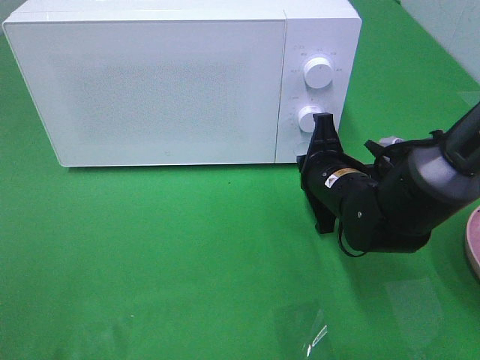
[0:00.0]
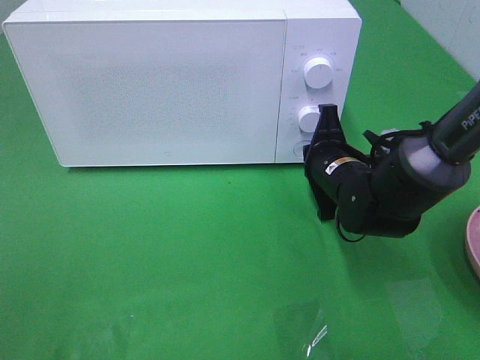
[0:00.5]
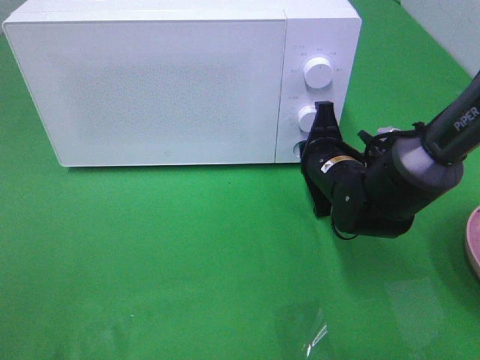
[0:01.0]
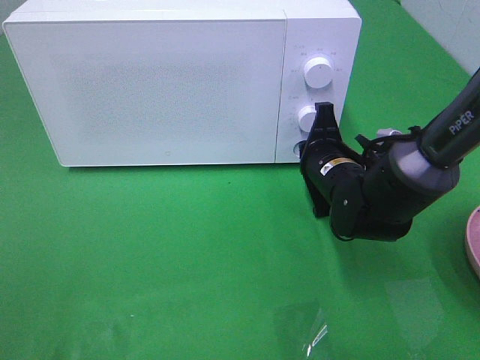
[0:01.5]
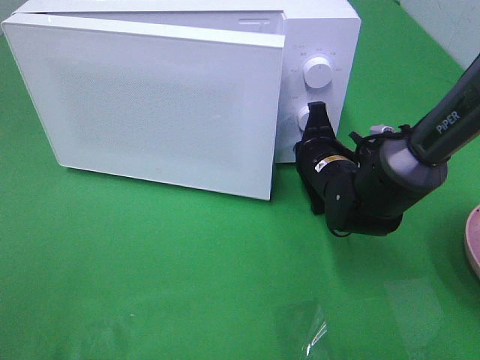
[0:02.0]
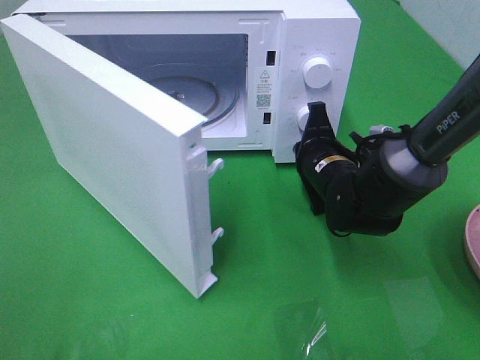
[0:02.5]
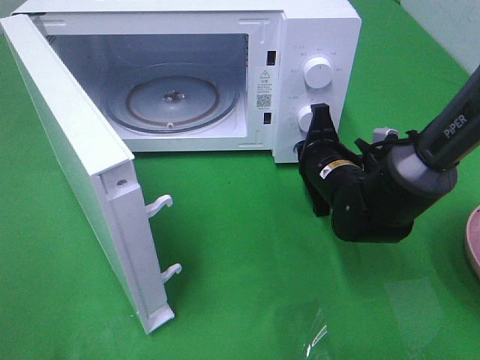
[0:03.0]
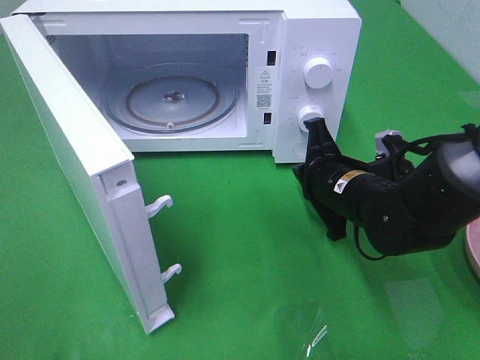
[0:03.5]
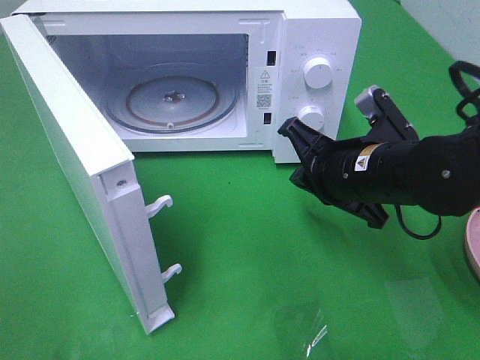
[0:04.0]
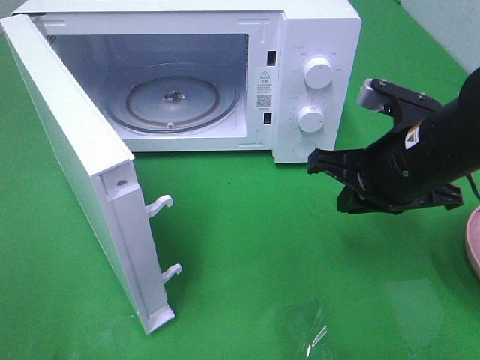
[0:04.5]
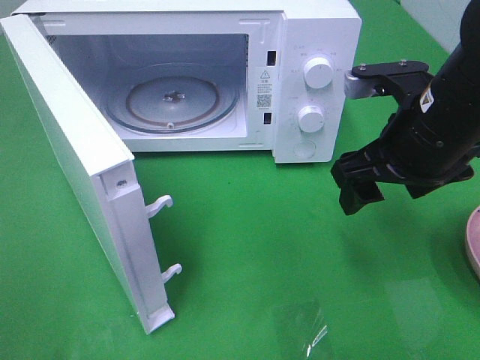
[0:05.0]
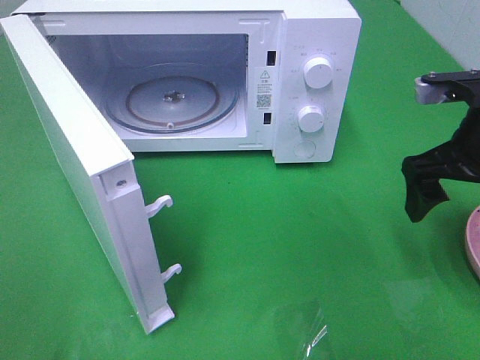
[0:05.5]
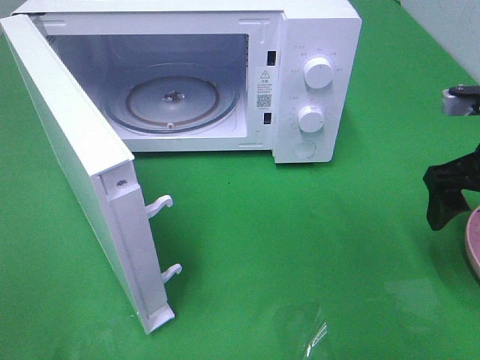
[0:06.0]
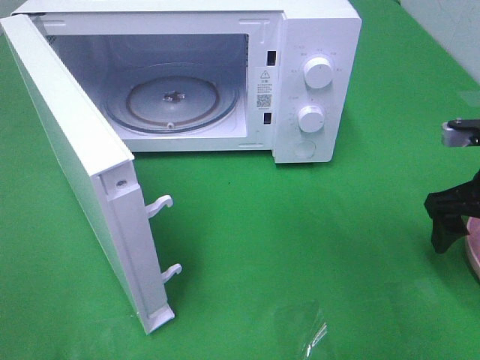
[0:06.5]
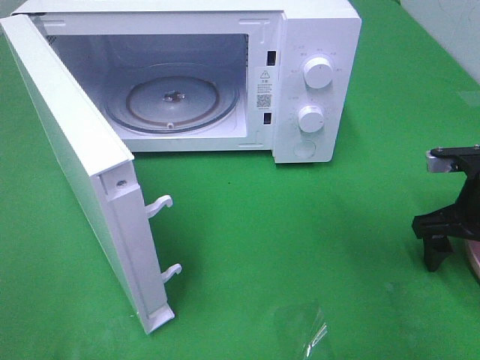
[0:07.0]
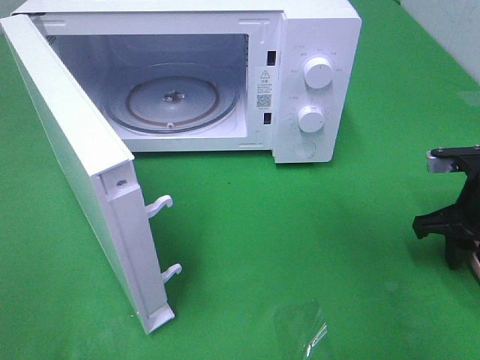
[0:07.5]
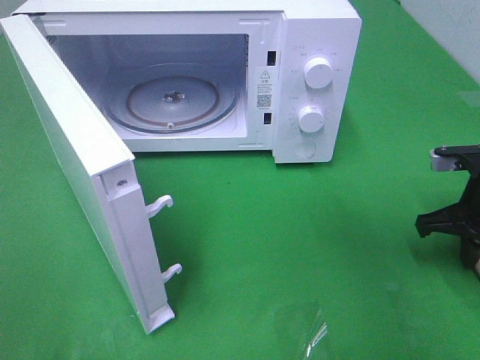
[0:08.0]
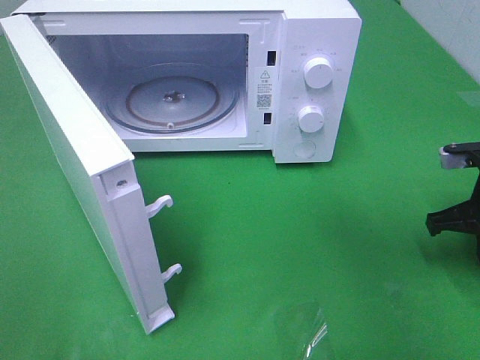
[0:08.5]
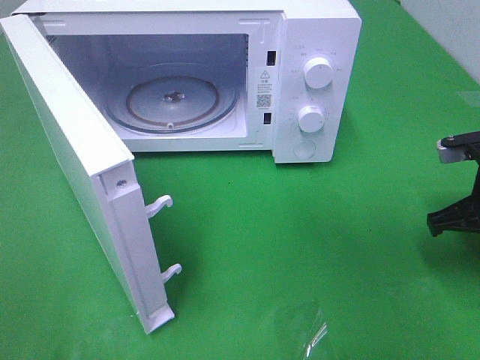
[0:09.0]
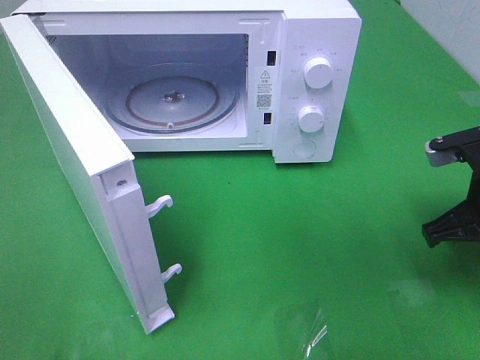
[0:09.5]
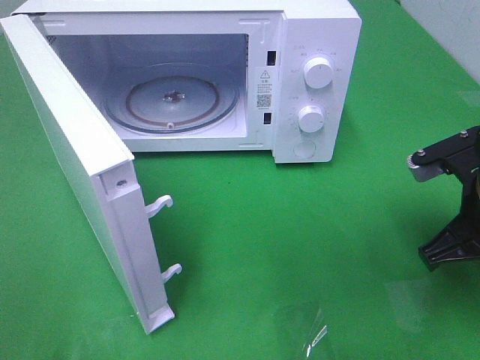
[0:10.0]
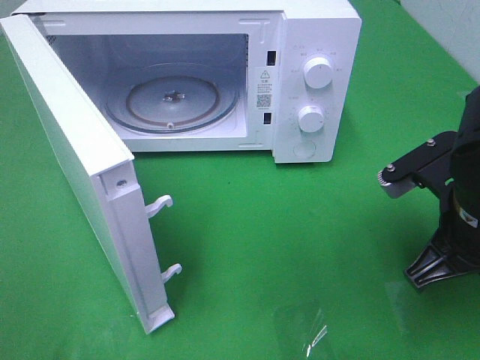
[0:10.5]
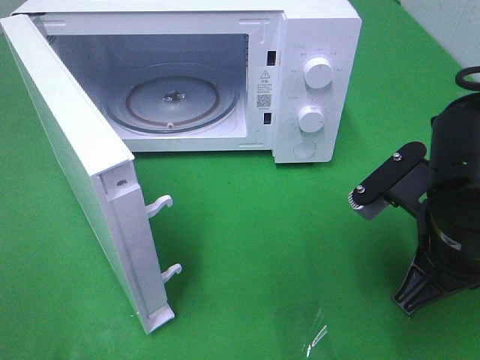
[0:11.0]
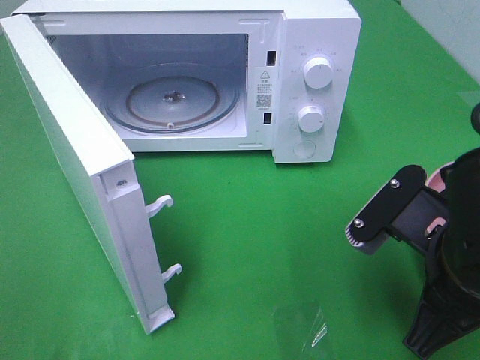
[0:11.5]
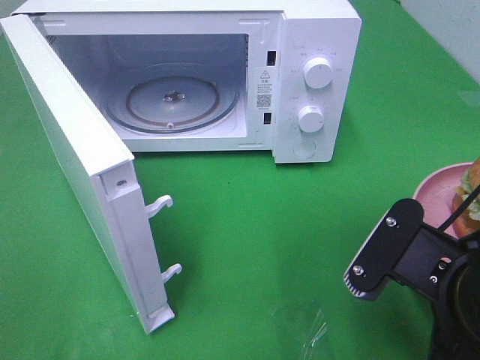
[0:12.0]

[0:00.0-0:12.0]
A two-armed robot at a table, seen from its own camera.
Task of the whole recording: Heat the burger.
Step, 0:00.0 to 0:03.0: Right hand: press the switch.
Step, 0:03.5 to 0:08.5: Right hand: grab the plate with the hamburger.
0:00.0 to 0:02.0: There are only small adjustments of the grippers.
0:02.0 to 0:04.0: The right gripper travels backward and upward by some 10 cm.
0:04.0 to 0:06.0: The right gripper moves to the right, about 15 cm, and opens its fingers.
0:06.0 to 0:08.0: The right gripper travels downward by approximately 10 cm, and closes.
0:08.0 to 0:10.0: The right gripper heads to the left, backward and upward, covering roughly 10 cm.
0:10.0 to 0:12.0: The right gripper travels backward and to the left by roughly 15 cm.

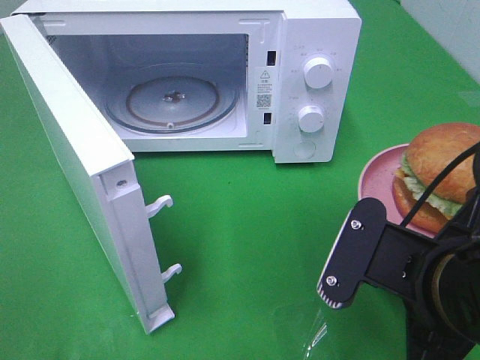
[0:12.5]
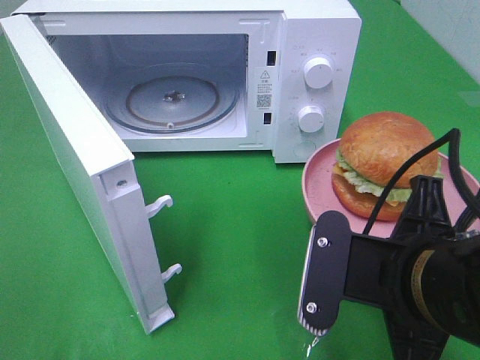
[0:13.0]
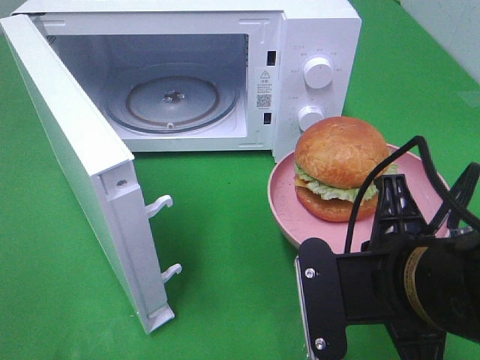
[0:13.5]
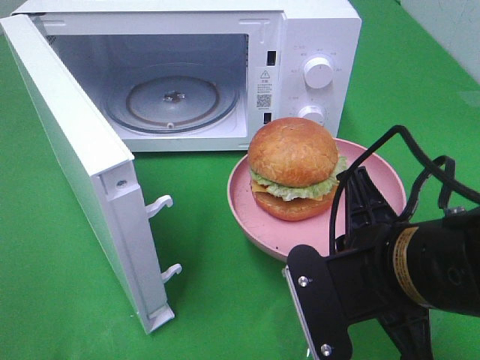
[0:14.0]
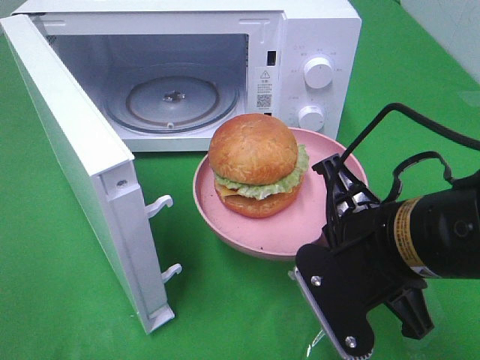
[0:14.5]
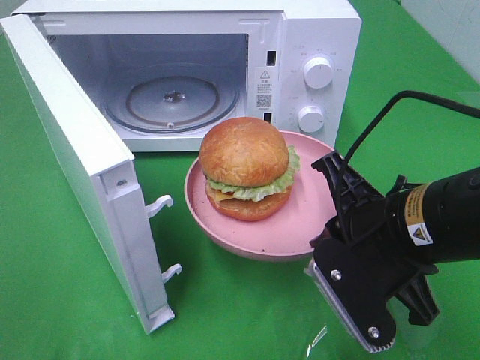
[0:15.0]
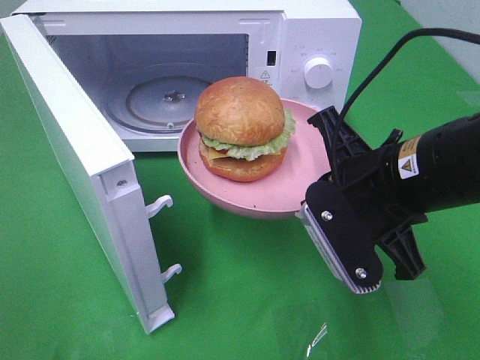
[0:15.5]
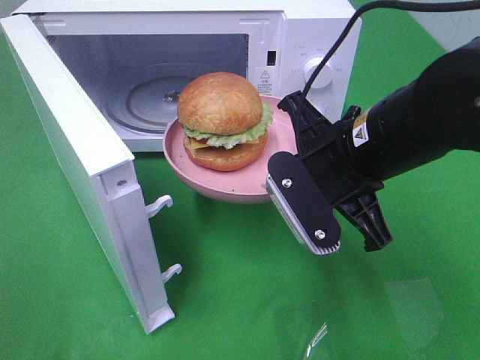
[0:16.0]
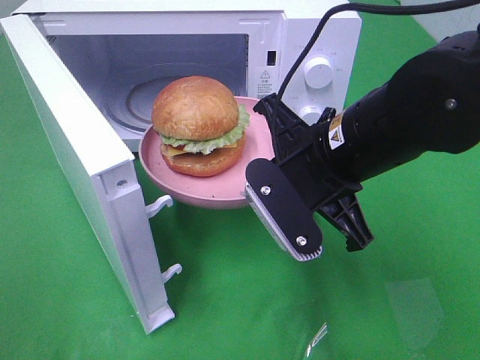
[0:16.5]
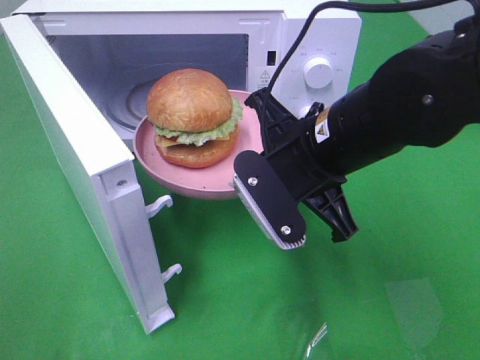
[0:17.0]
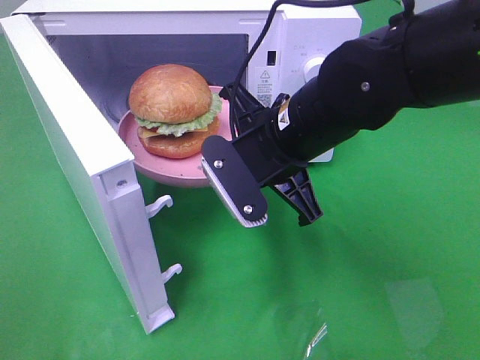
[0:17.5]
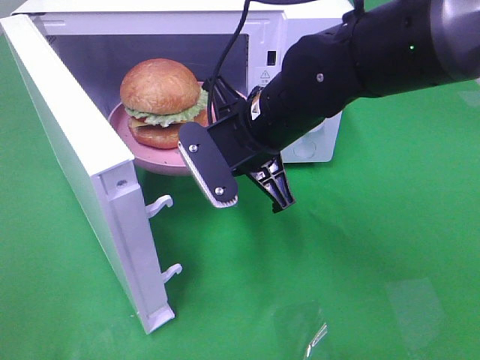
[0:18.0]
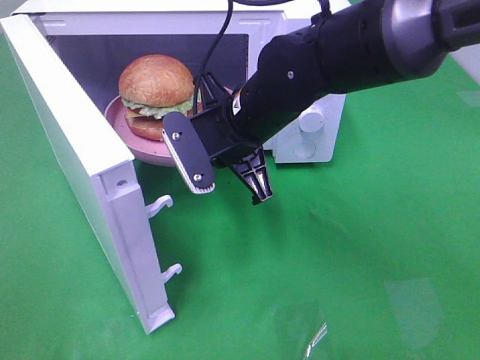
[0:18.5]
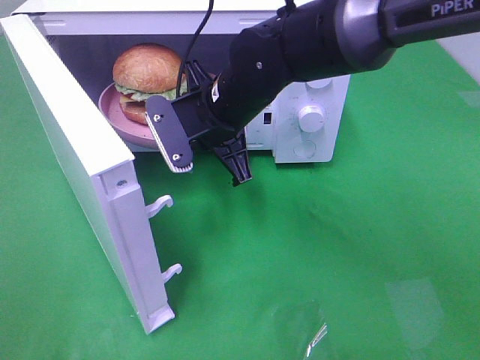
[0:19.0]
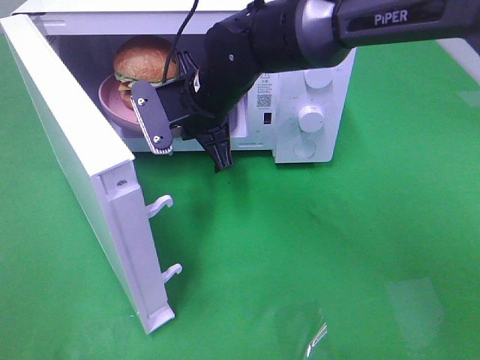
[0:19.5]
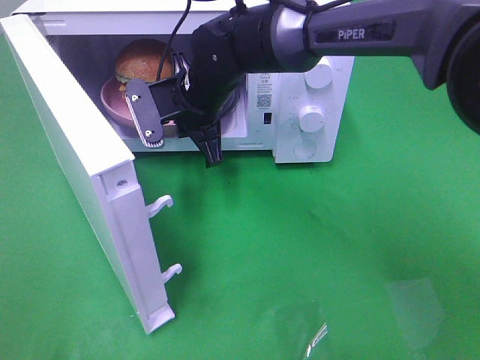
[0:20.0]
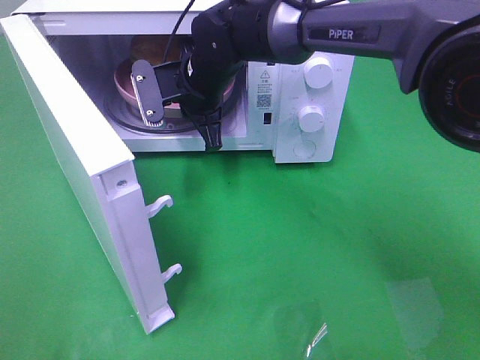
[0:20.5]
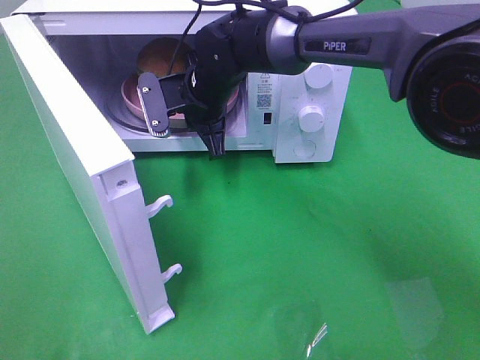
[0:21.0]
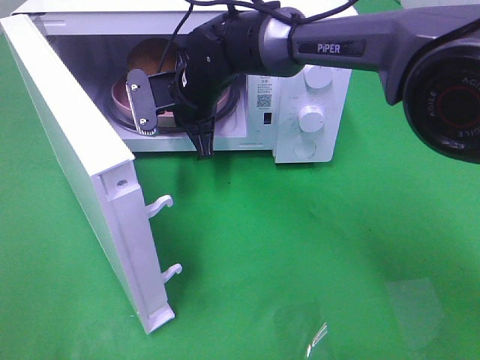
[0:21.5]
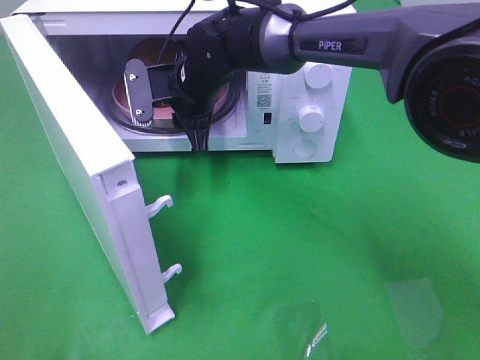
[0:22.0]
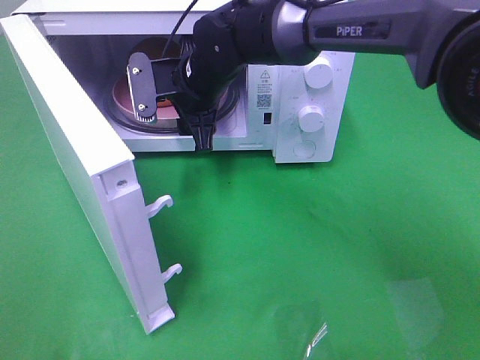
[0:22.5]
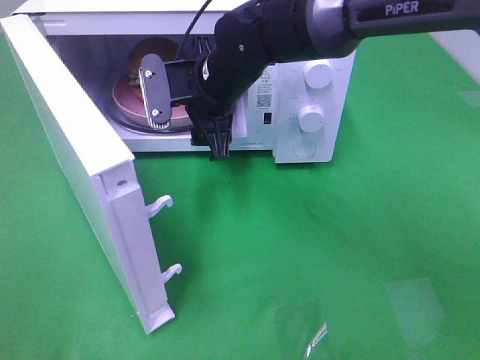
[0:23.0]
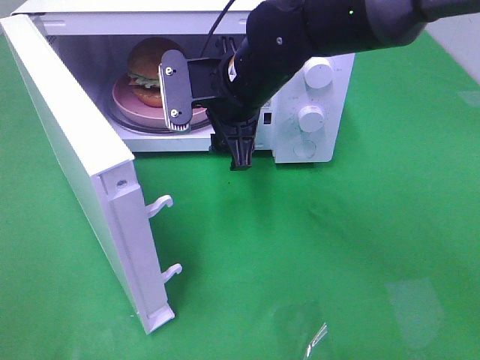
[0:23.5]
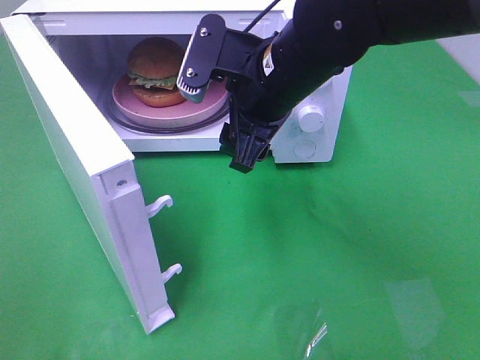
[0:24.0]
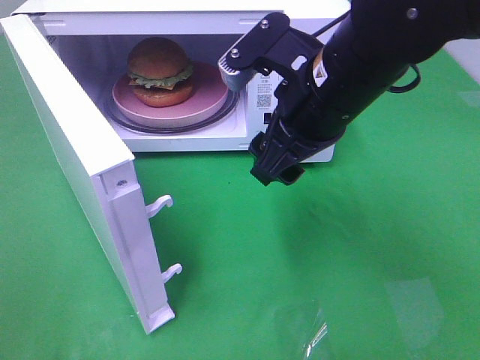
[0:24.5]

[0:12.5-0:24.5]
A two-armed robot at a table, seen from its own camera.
Task of the whole recording: Heat the burger.
Step, 0:12.5 to 0:22.0: Right hand: place the plate in the microwave.
0:14.5 to 0:16.5: The right gripper is displaced forward by some 5 cm.
0:16.5 to 0:18.5: The right gripper is displaced forward and to the left by approximately 10 cm.
0:18.5 to 0:20.5: The right gripper is displaced forward by roughly 10 cm.
0:20.5 to 0:22.5: The right gripper opens its fingers.
0:22.5 to 0:24.5: The right gripper heads backward, to the right and upward, covering roughly 20 cm.

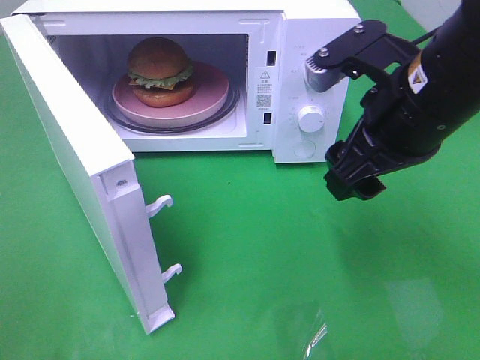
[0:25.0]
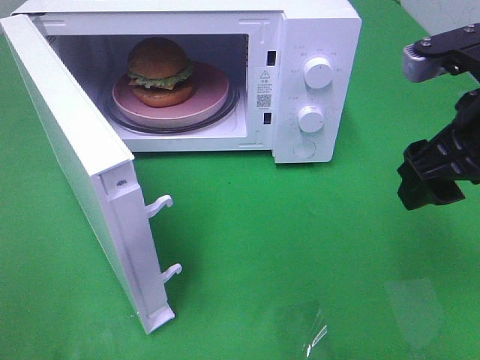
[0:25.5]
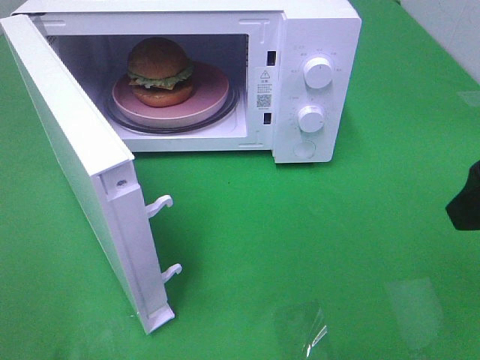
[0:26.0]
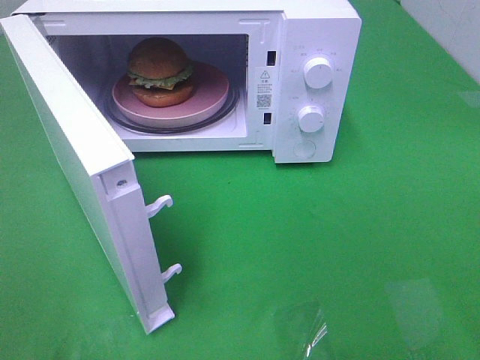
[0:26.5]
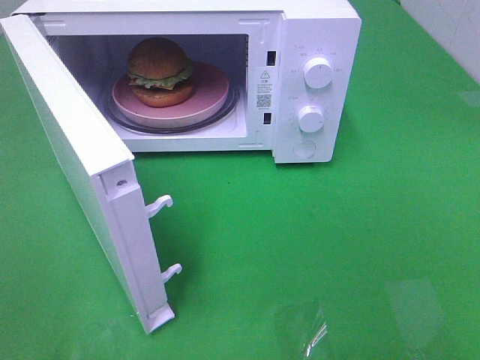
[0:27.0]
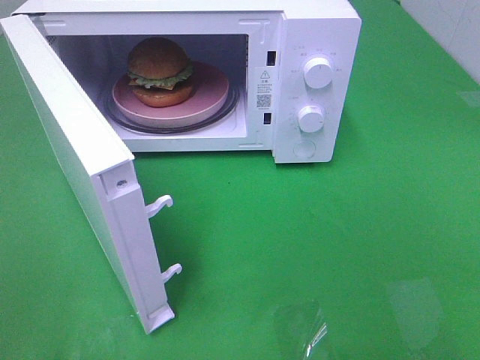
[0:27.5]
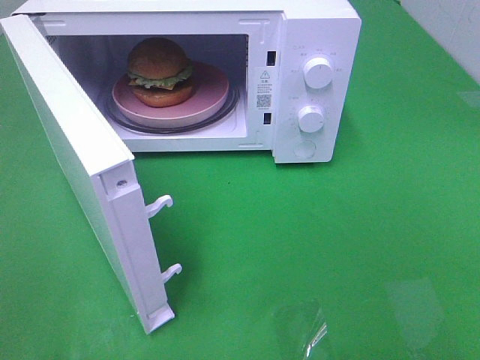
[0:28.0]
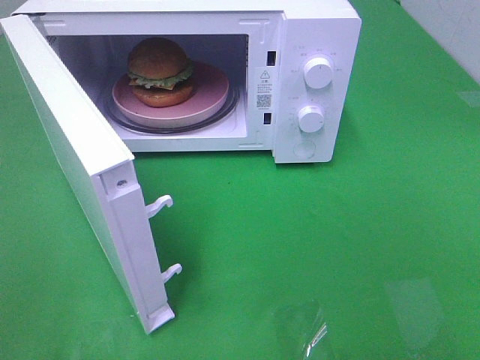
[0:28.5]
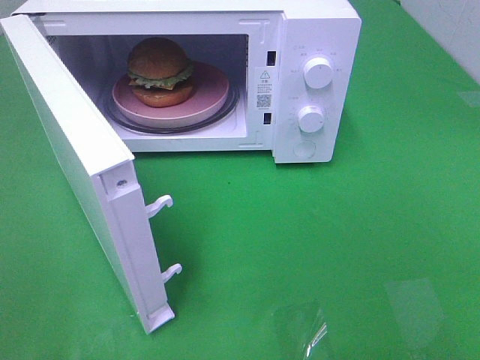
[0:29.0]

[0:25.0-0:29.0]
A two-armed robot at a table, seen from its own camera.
Task of the whole recording: Heat the burger.
0:25.0 to 0:27.0: The right gripper goes some 25 cm backward and to the right.
